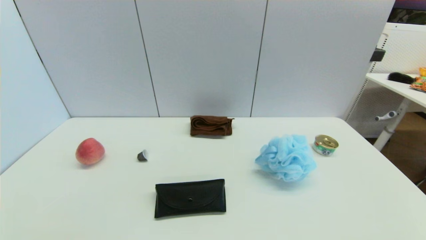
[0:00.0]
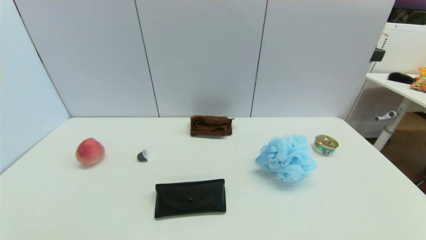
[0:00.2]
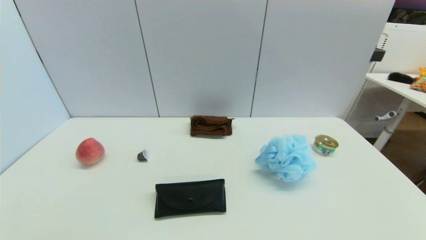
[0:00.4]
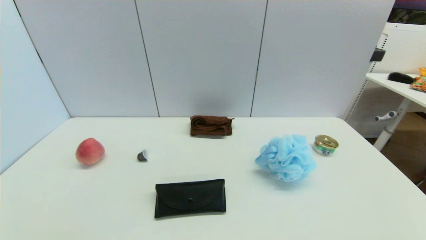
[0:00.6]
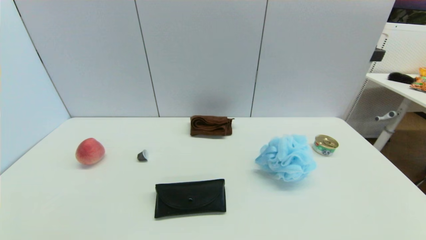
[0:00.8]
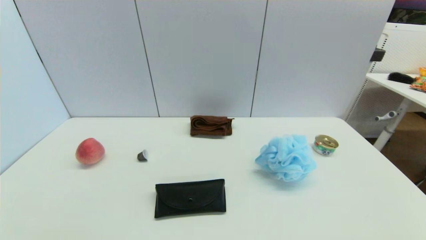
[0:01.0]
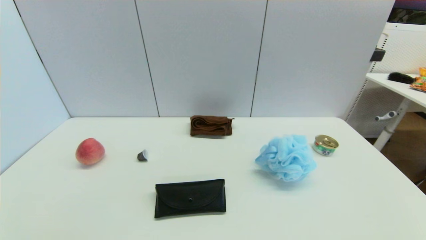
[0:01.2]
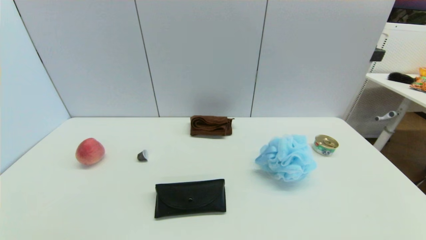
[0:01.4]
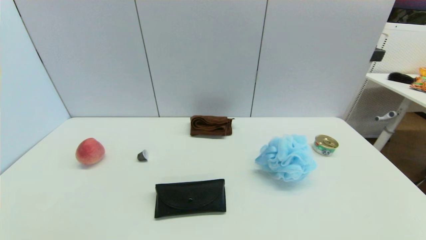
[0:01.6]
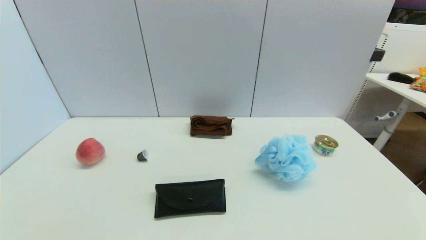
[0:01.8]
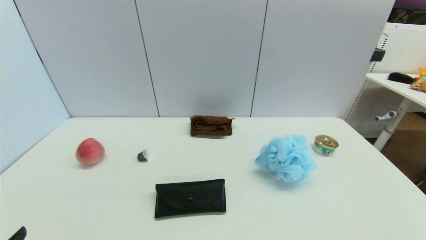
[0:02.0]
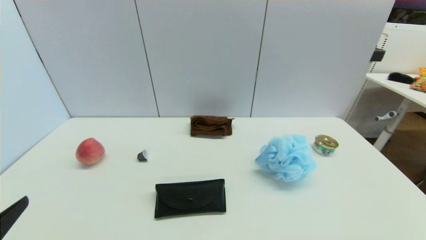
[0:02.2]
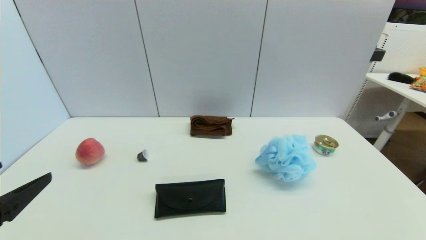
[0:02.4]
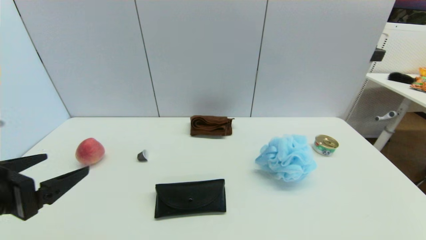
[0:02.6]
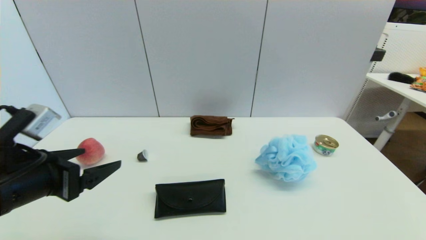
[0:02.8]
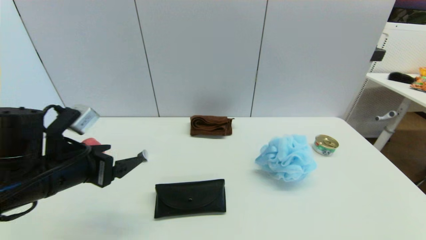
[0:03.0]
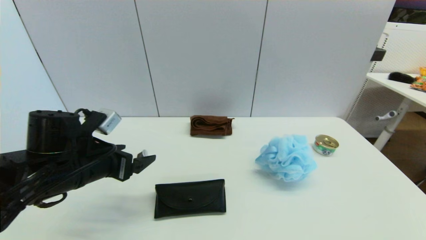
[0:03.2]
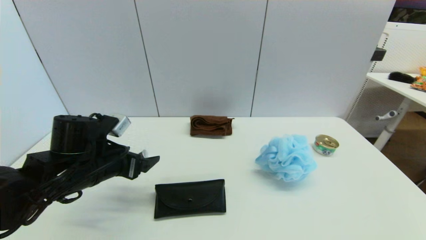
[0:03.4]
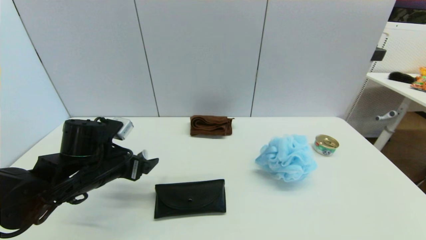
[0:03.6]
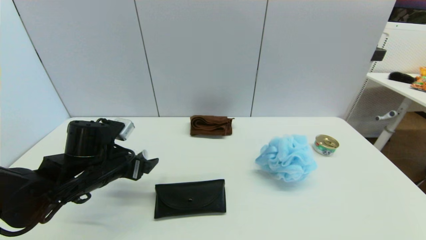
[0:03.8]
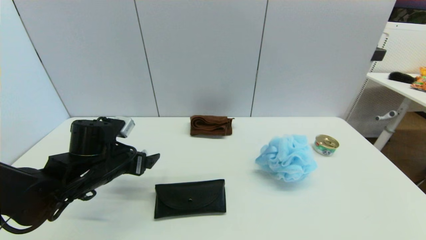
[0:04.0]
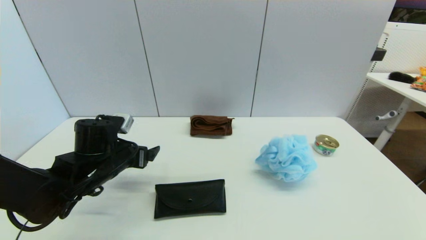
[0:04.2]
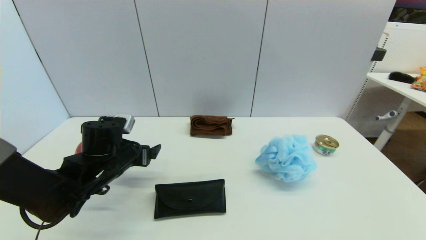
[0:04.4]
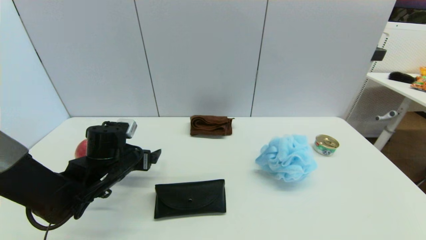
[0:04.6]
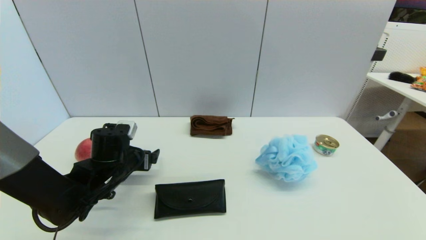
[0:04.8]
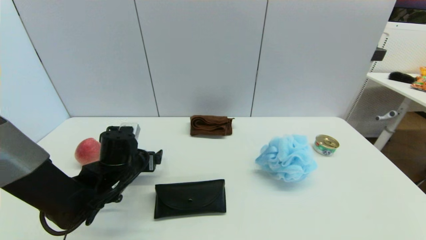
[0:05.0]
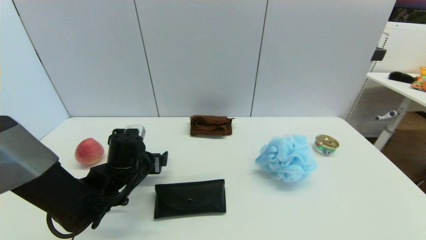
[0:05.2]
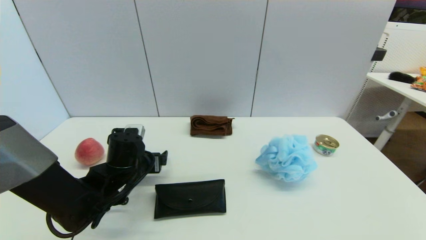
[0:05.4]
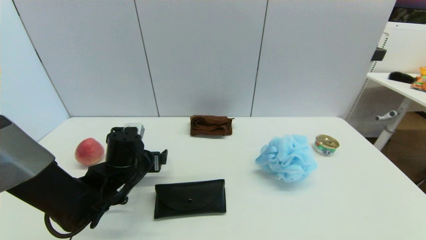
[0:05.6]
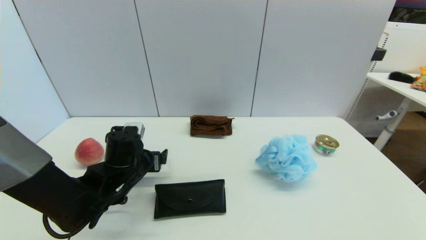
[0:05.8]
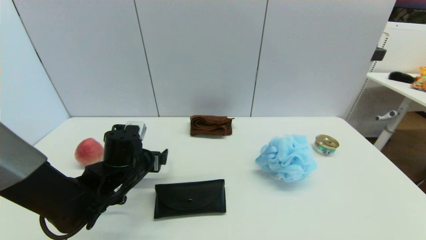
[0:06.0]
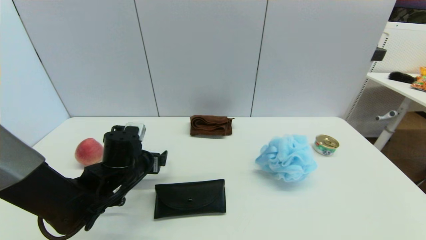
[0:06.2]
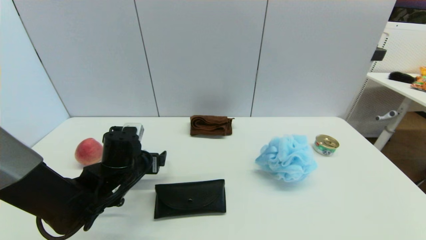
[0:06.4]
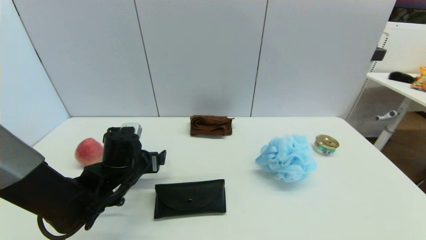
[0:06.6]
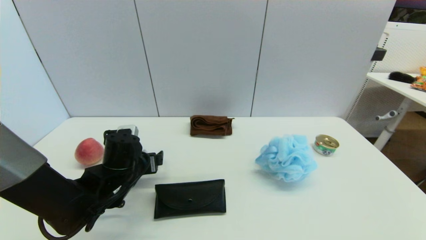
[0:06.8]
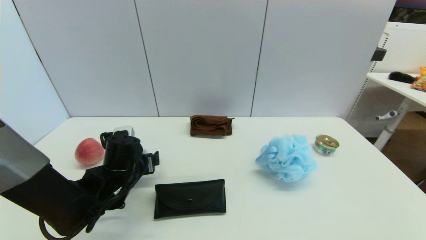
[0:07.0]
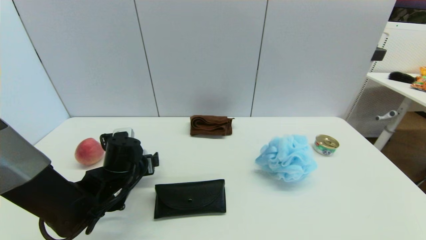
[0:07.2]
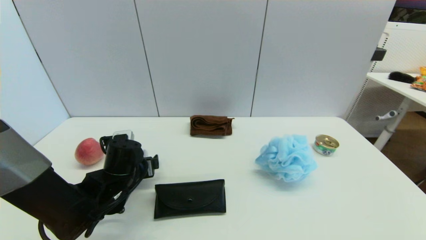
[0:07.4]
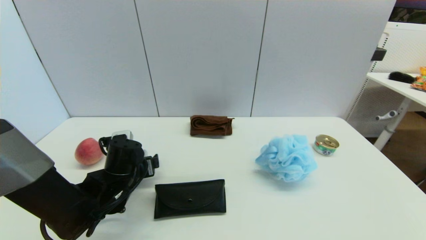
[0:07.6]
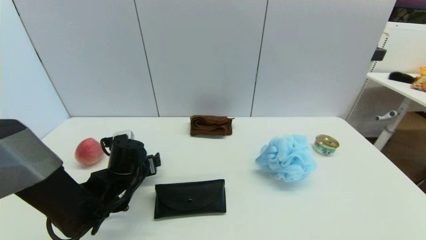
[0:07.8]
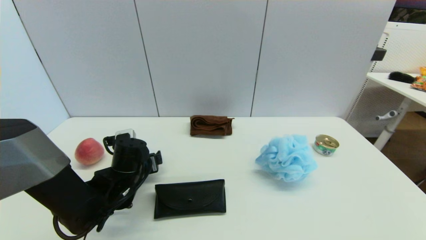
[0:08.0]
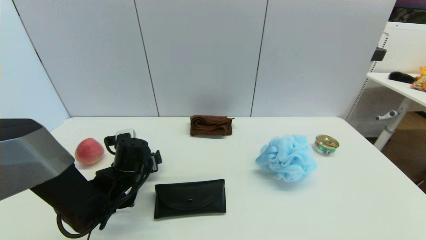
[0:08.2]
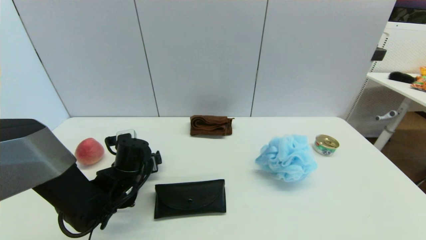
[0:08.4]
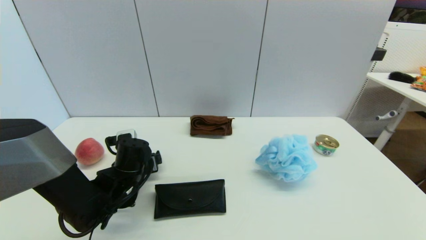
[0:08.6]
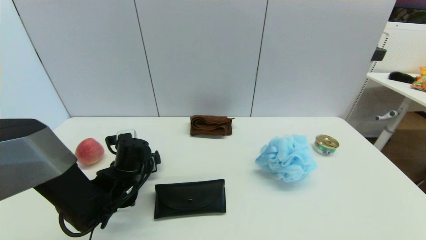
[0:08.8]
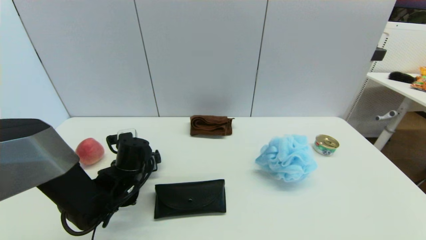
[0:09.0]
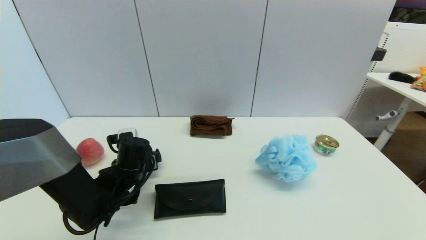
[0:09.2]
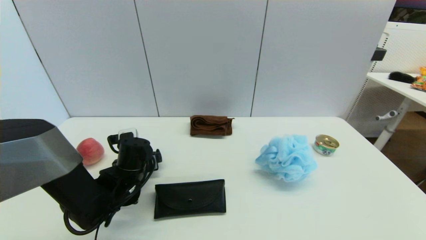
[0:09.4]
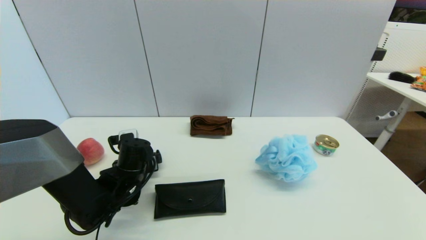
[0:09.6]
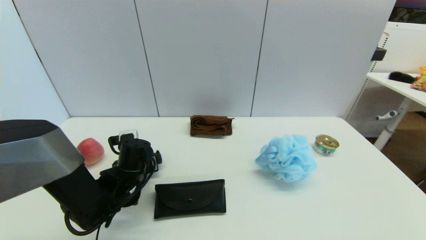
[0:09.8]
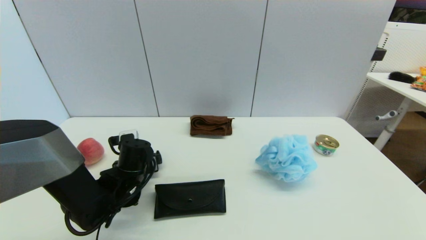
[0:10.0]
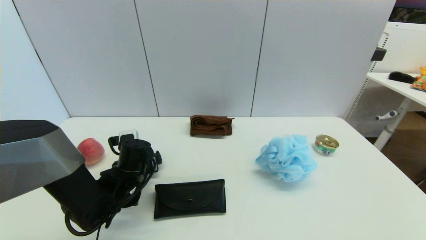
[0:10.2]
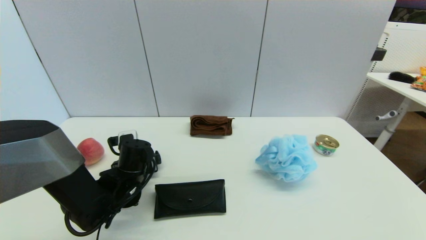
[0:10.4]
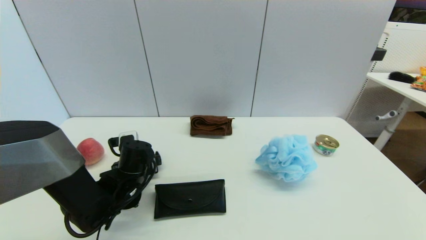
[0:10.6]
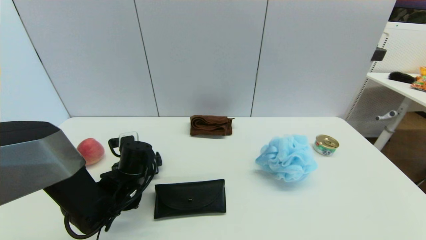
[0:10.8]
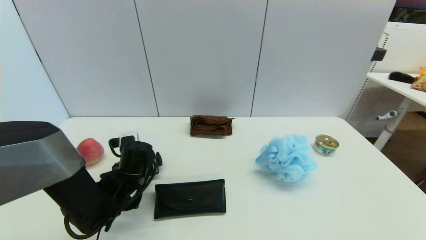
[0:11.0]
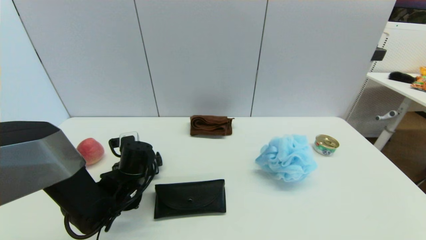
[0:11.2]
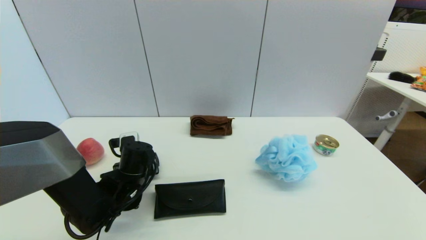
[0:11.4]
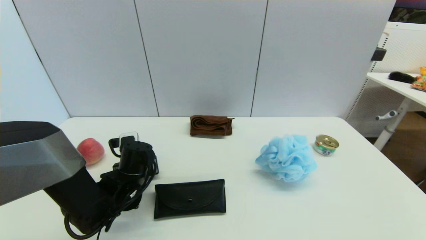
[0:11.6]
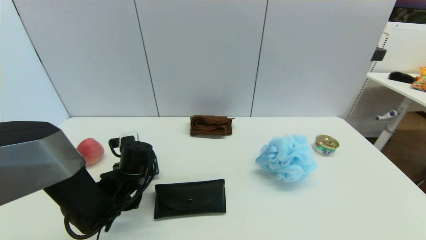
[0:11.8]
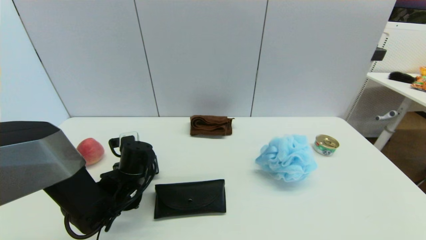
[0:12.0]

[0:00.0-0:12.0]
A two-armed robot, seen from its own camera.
Step, 0:02.0 to 0:12.0: Grasp the coffee capsule with left gripper.
0:00.0 to 0:01.6: The two grippers keep their place.
0:01.6 to 0:03.0: The left gripper is displaced forward and upward by roughly 25 cm.
0:03.0 to 0:04.4: The left gripper is displaced forward and downward by roughly 10 cm.
0:04.4 to 0:07.6: The grippers move only a little.
0:07.6 to 0:09.0: There are only small adjustments of the grippers.
0:09.0 to 0:10.4: The two grippers keep their place.
0:10.4 to 0:12.0: The left gripper closes its fingers.

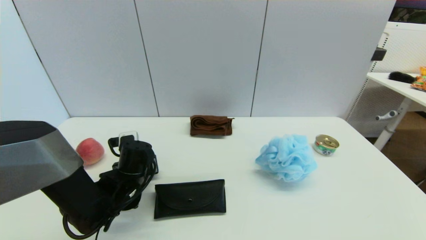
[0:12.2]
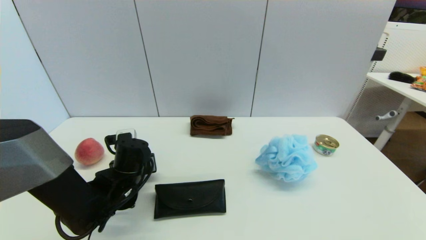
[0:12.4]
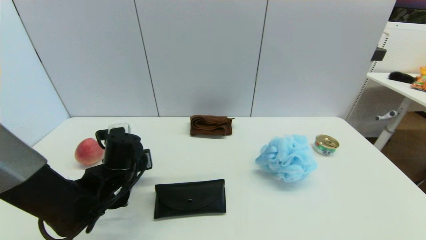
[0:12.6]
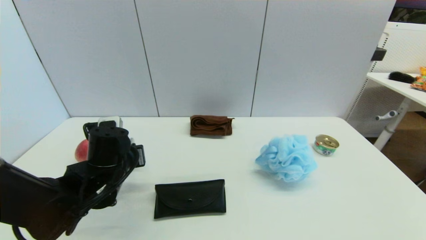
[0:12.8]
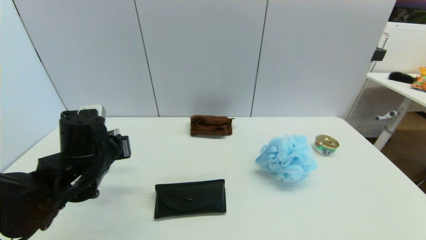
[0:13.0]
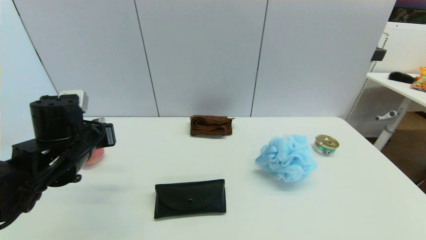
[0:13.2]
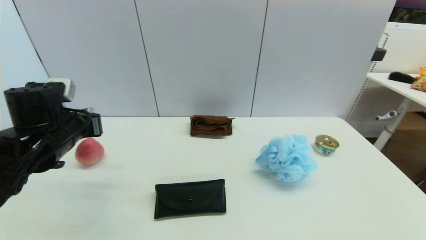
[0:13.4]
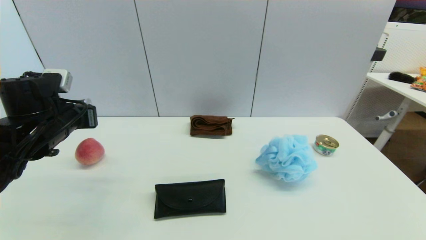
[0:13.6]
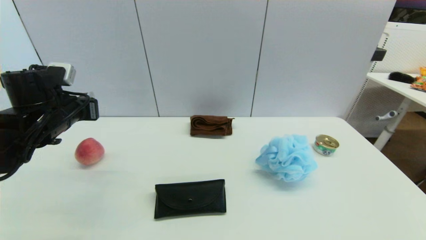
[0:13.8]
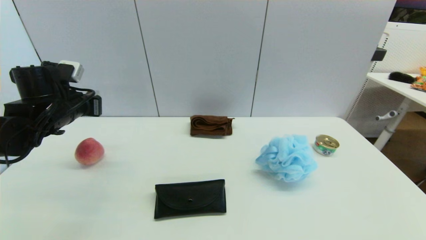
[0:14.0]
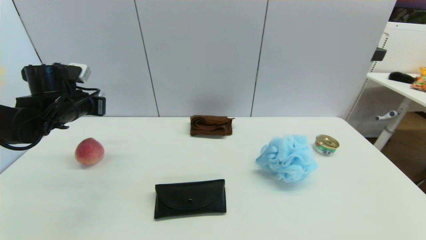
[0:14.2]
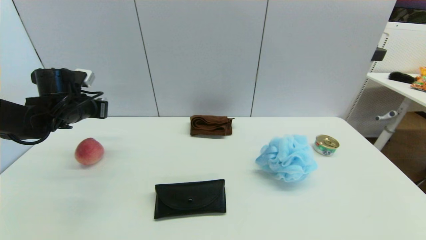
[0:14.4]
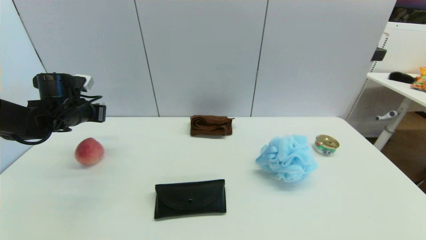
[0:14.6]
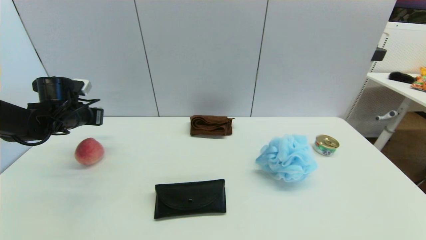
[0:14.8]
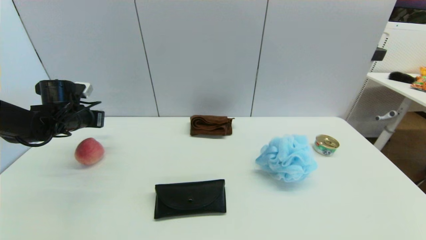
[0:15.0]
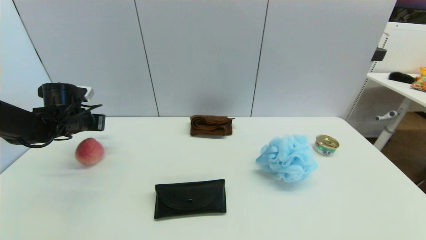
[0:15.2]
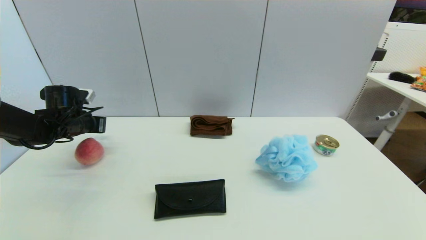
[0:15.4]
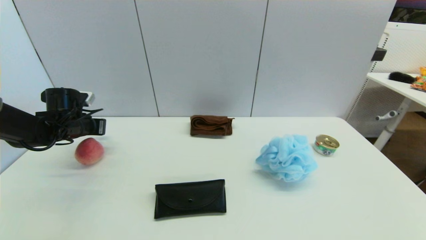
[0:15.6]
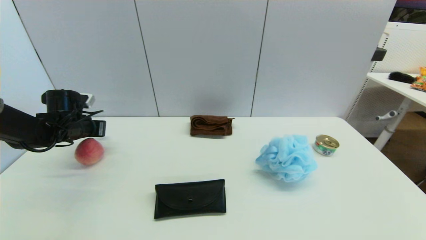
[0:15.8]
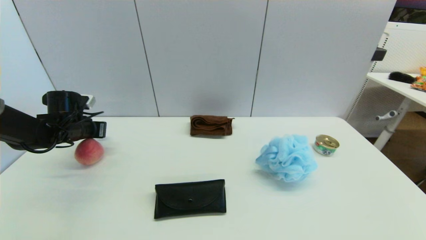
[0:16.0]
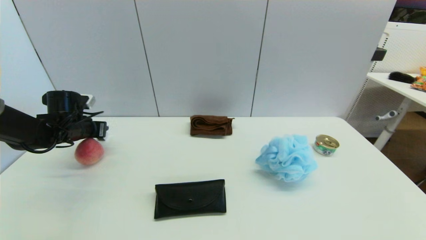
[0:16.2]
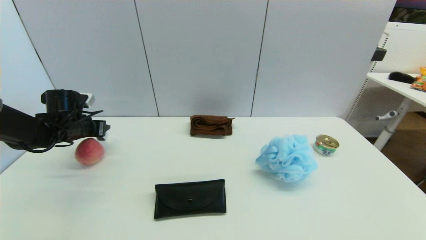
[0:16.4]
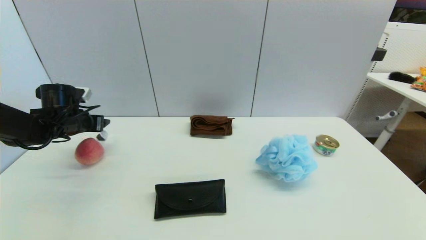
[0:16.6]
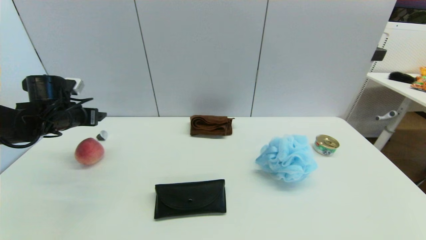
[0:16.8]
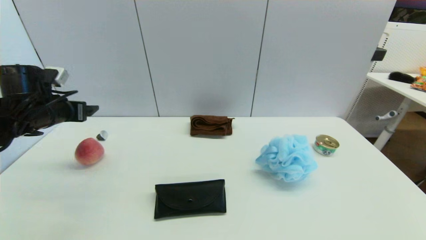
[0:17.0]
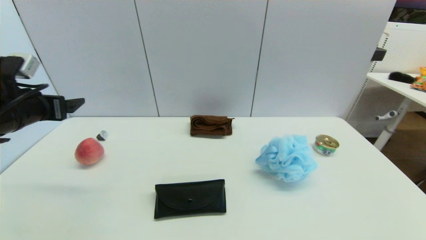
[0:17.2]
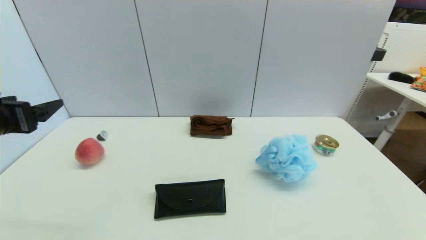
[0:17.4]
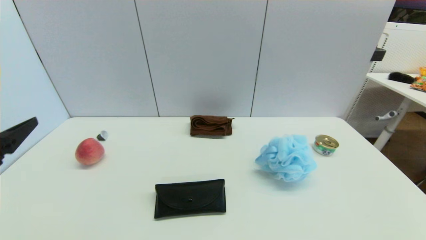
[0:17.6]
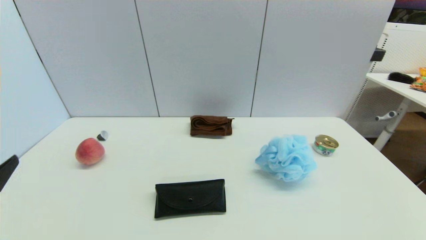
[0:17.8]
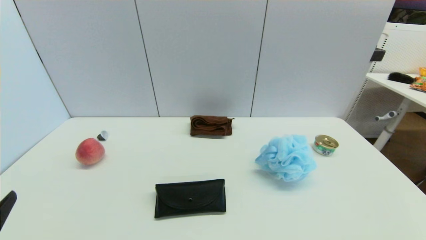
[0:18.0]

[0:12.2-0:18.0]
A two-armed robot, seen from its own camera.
0:12.2 to 0:13.6: The left gripper is displaced upward and to the left by roughly 20 cm.
0:13.6 to 0:15.0: The left gripper moves forward and to the left, roughly 15 cm.
0:15.0 to 0:16.6: The left gripper opens up.
0:16.6 to 0:18.0: The left gripper is displaced backward by about 35 cm.
